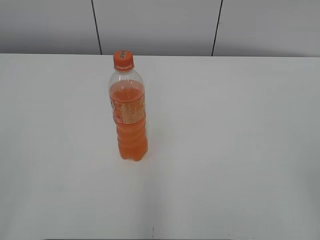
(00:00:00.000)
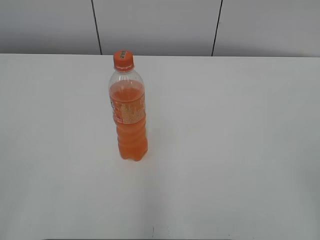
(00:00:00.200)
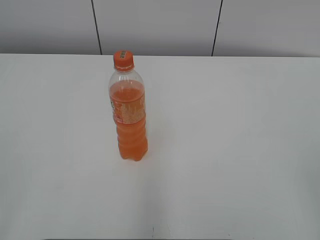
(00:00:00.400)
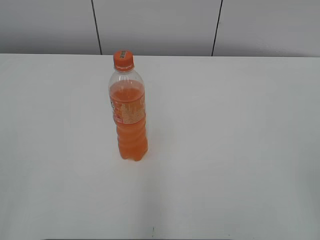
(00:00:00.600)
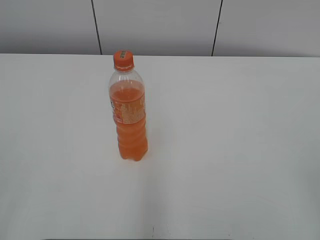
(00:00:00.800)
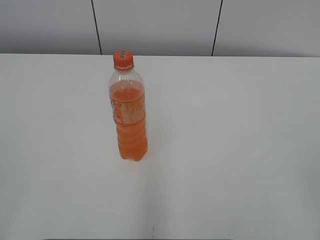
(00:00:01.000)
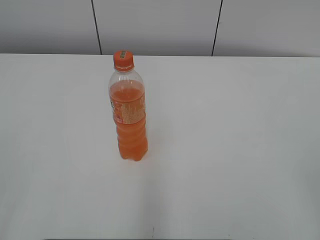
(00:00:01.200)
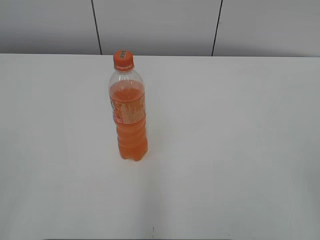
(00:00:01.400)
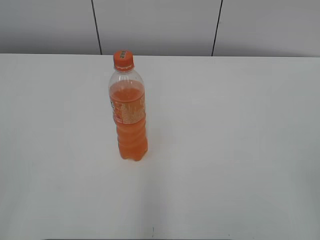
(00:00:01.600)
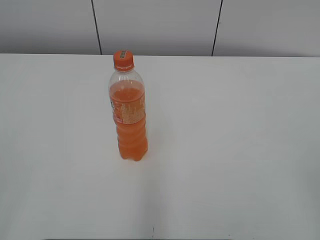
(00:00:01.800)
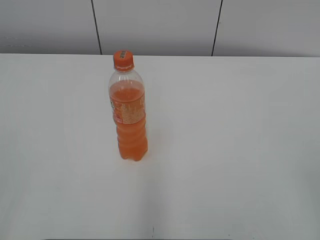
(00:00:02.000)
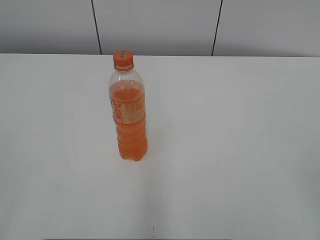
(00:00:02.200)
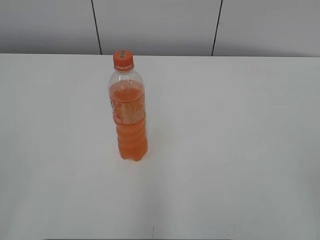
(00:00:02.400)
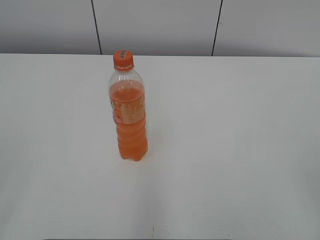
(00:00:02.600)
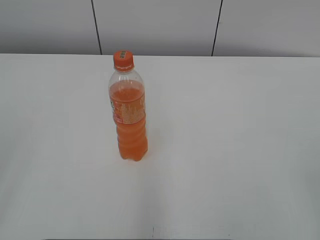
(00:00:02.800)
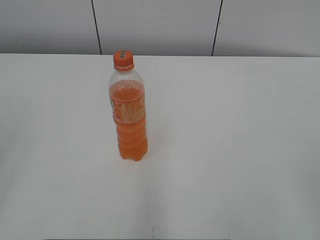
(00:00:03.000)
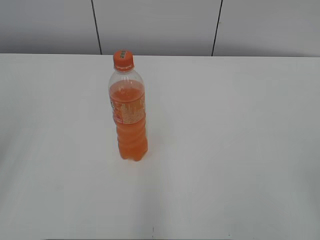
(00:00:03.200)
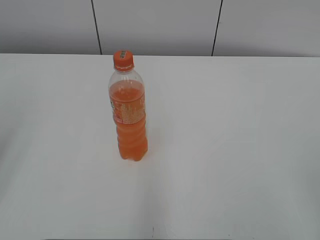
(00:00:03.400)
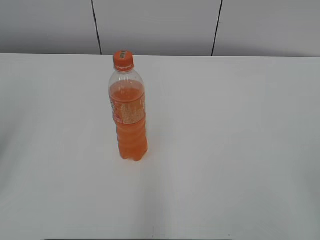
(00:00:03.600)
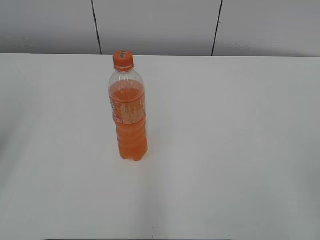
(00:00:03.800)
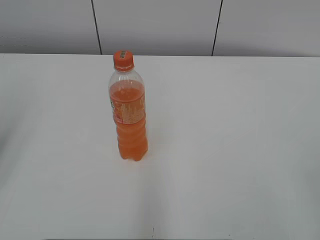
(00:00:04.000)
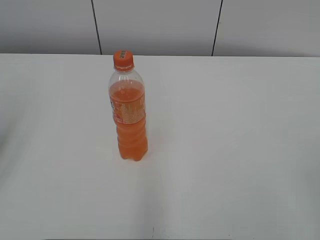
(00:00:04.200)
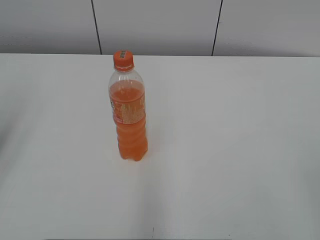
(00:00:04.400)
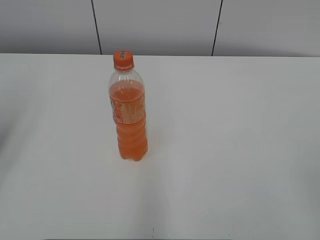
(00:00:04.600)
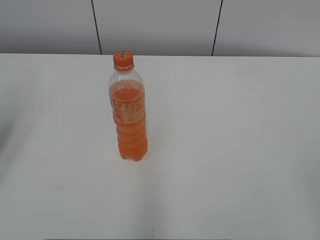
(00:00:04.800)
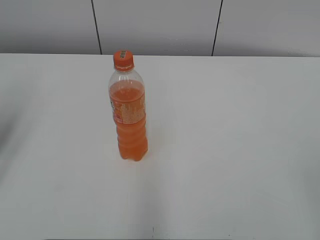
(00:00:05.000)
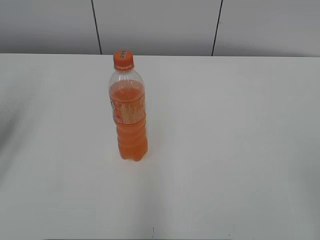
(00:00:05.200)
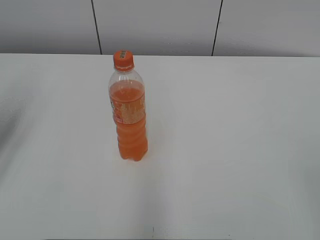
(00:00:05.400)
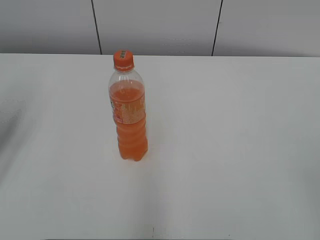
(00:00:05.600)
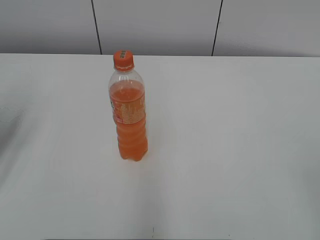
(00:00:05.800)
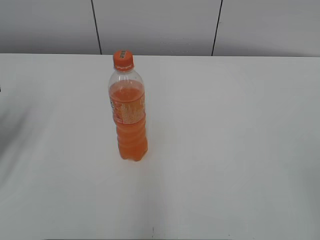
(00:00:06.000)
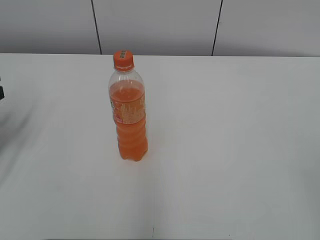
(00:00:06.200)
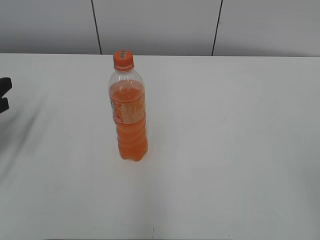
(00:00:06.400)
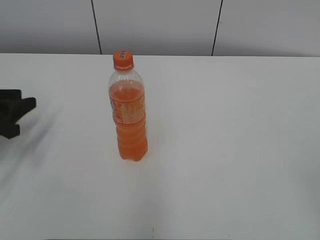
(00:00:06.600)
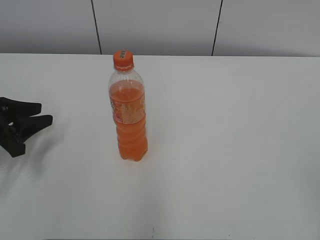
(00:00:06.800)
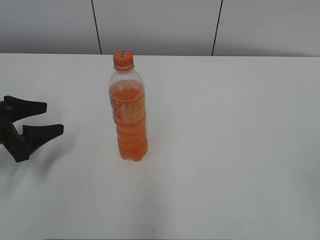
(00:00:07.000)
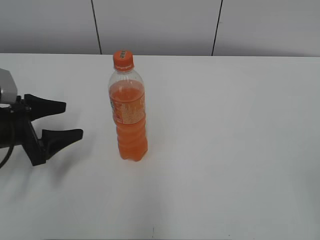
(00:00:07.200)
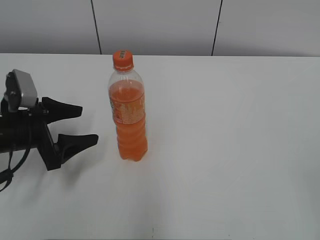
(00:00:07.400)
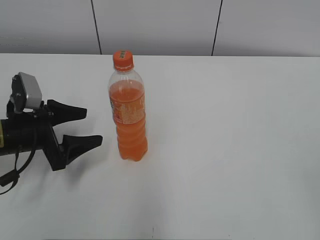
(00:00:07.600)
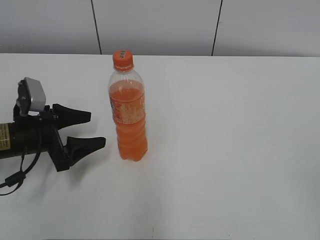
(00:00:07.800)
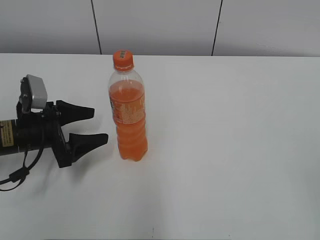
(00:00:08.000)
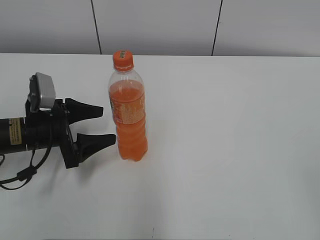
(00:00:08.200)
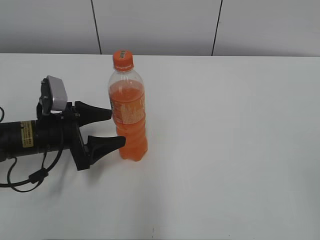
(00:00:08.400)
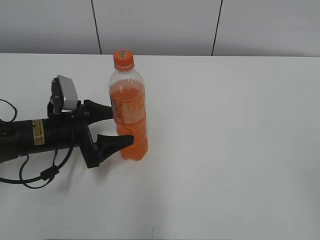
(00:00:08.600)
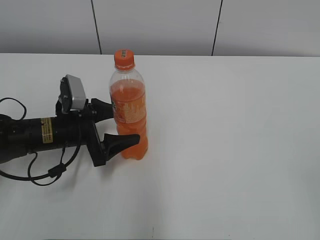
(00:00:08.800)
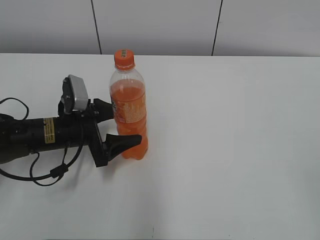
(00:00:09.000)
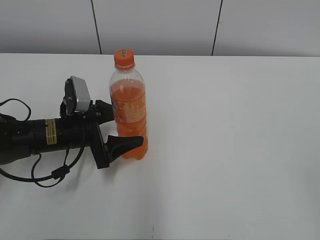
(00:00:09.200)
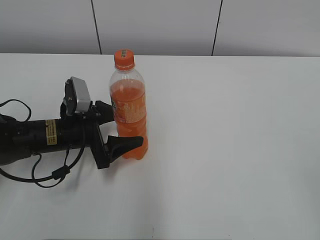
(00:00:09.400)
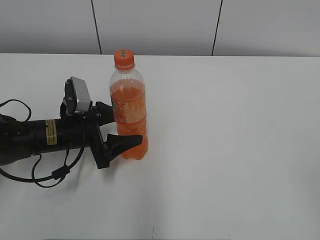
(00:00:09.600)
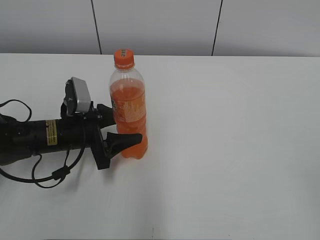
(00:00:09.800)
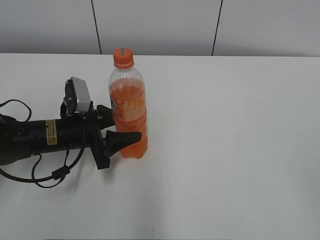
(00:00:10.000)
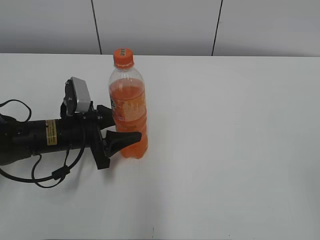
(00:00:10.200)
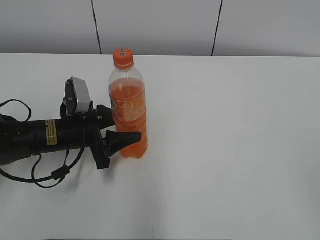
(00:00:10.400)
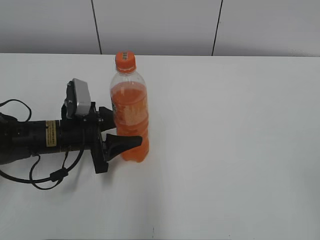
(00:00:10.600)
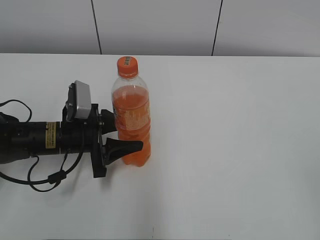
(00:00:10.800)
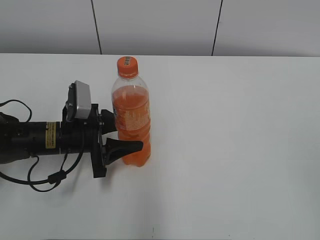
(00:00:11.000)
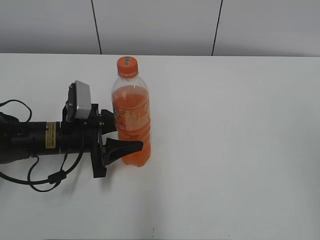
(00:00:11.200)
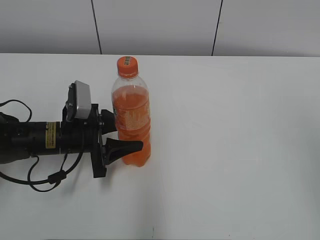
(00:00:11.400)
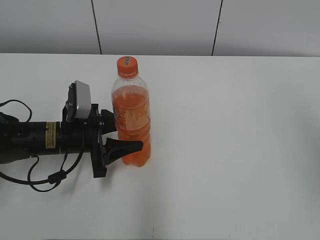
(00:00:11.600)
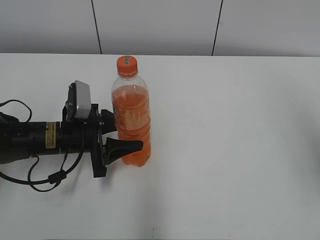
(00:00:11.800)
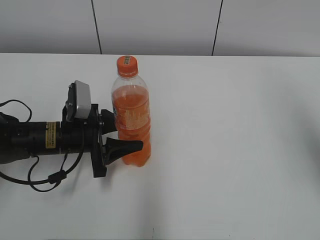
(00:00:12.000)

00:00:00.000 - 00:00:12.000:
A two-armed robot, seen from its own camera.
Step, 00:00:00.000 - 00:00:10.200: Grab the Mirinda with the left hand.
00:00:06.000 - 00:00:07.600: The left gripper heads downward and to the right, covering roughly 15 cm, and opens.
00:00:07.600 - 00:00:09.000: The left gripper travels to the right by roughly 5 cm.
00:00:09.000 - 00:00:10.400: The left gripper closes.
00:00:10.400 - 00:00:12.000: The right gripper heads forward and upward, covering approximately 20 cm.

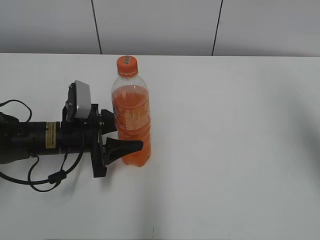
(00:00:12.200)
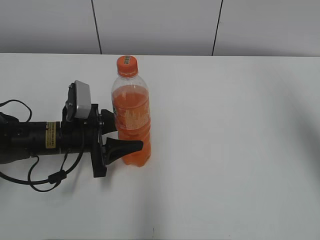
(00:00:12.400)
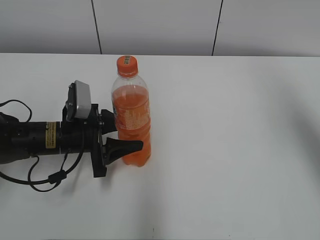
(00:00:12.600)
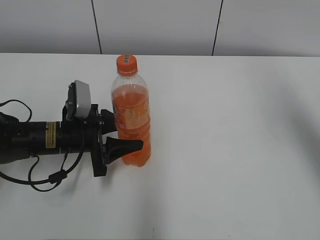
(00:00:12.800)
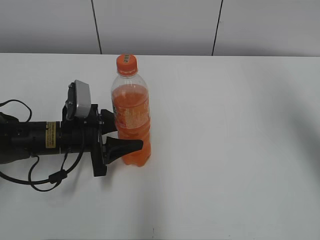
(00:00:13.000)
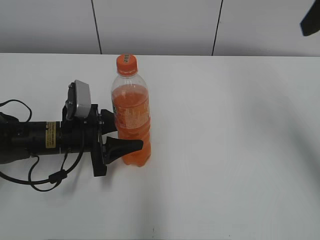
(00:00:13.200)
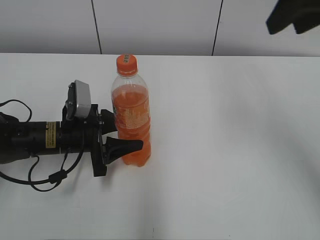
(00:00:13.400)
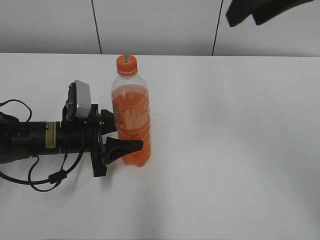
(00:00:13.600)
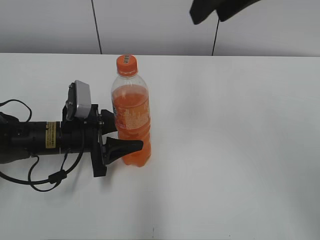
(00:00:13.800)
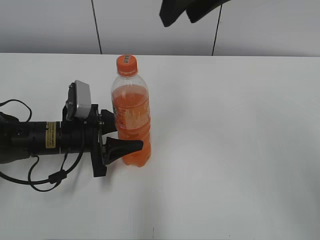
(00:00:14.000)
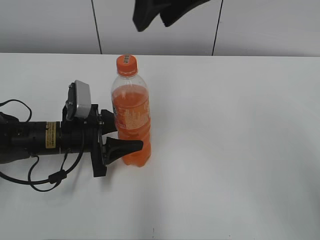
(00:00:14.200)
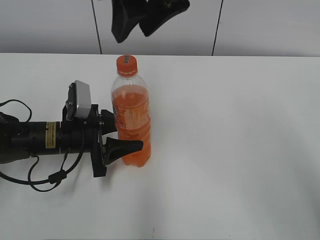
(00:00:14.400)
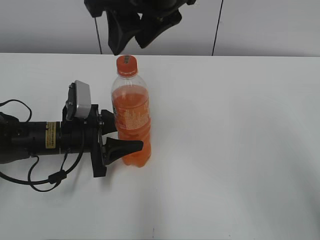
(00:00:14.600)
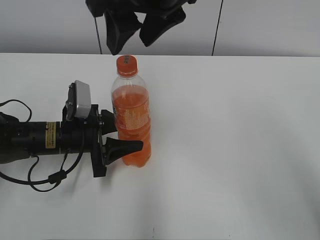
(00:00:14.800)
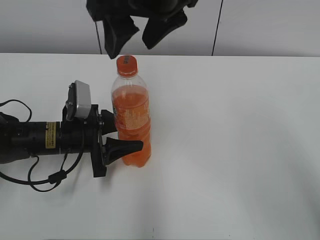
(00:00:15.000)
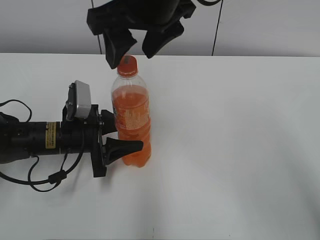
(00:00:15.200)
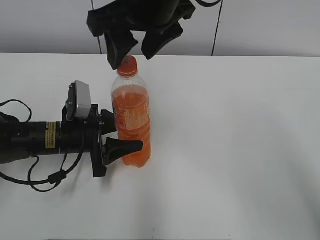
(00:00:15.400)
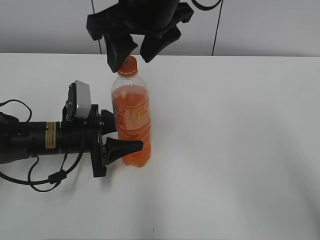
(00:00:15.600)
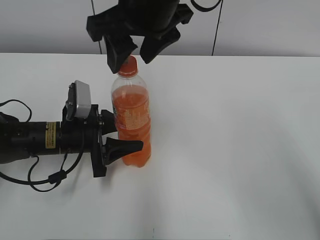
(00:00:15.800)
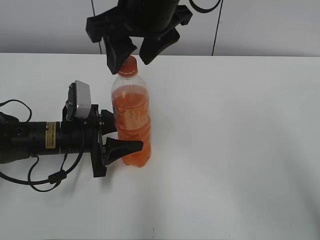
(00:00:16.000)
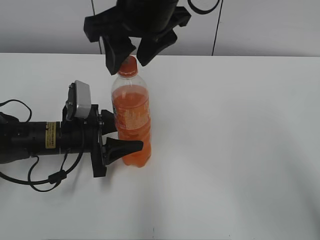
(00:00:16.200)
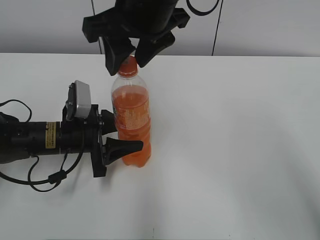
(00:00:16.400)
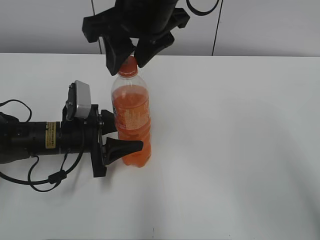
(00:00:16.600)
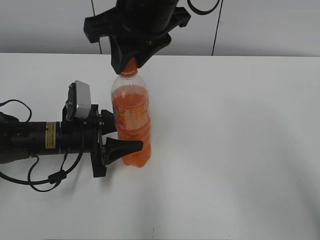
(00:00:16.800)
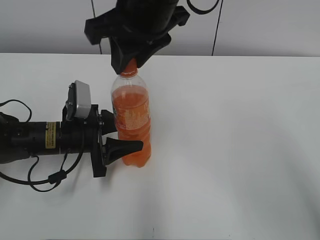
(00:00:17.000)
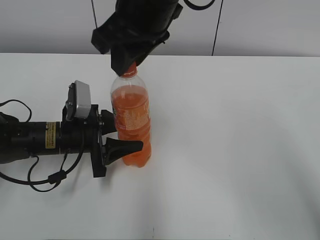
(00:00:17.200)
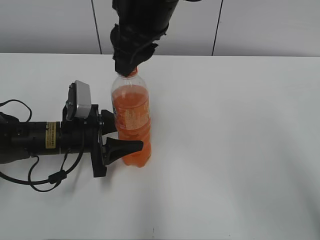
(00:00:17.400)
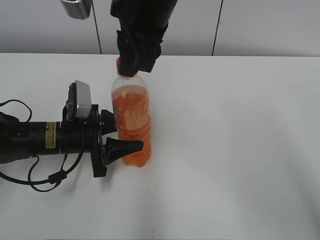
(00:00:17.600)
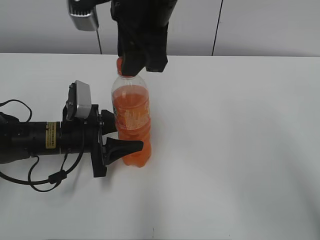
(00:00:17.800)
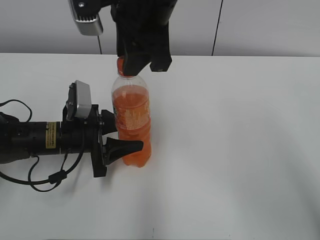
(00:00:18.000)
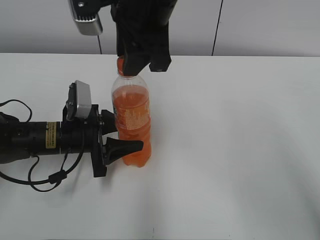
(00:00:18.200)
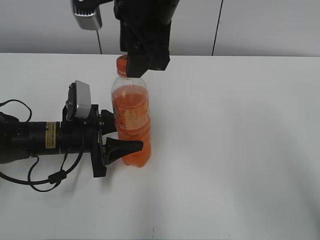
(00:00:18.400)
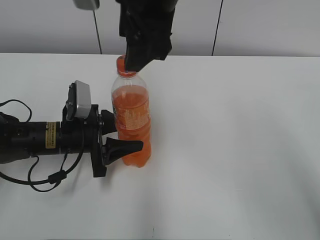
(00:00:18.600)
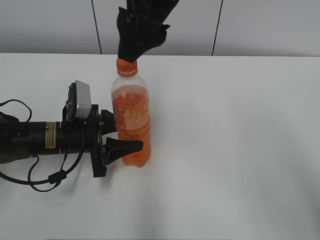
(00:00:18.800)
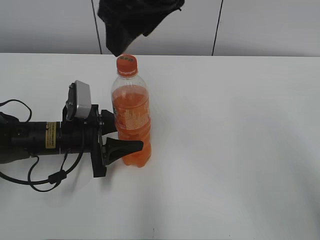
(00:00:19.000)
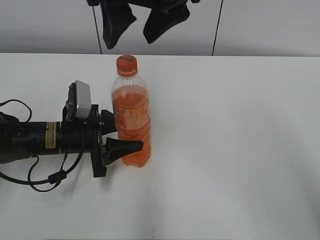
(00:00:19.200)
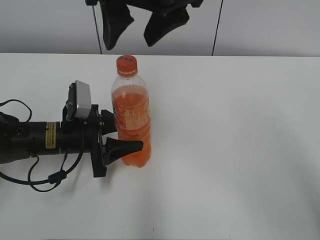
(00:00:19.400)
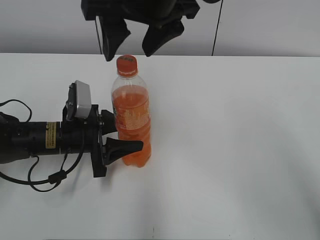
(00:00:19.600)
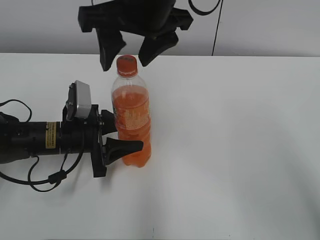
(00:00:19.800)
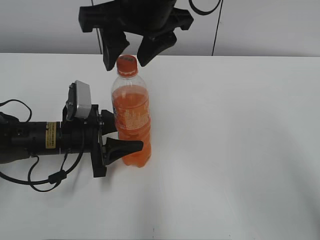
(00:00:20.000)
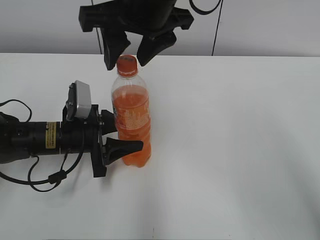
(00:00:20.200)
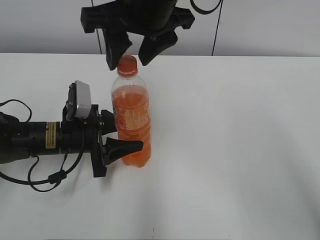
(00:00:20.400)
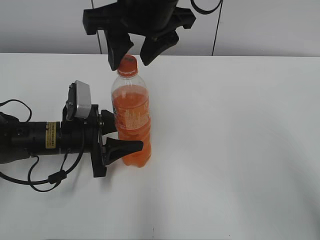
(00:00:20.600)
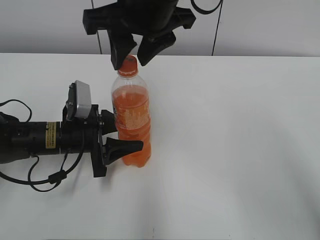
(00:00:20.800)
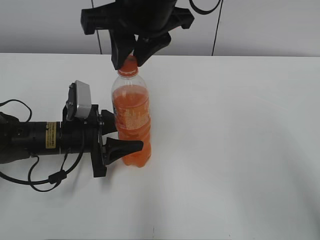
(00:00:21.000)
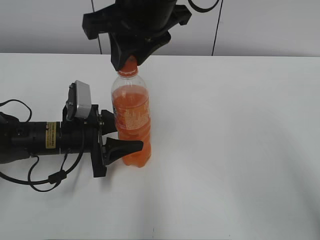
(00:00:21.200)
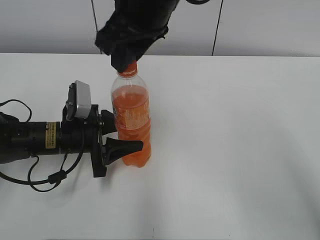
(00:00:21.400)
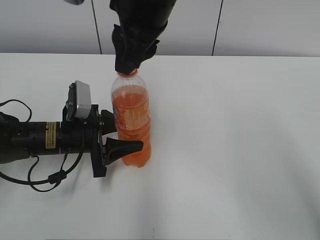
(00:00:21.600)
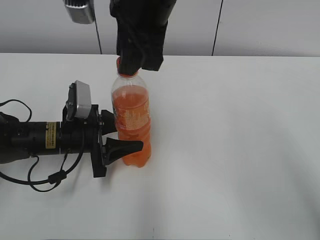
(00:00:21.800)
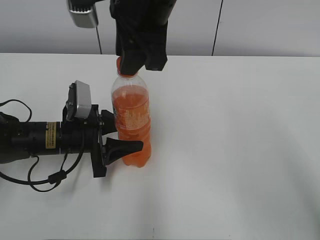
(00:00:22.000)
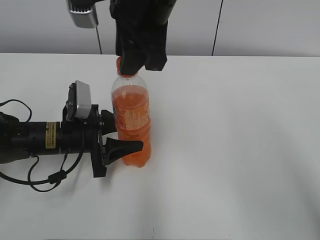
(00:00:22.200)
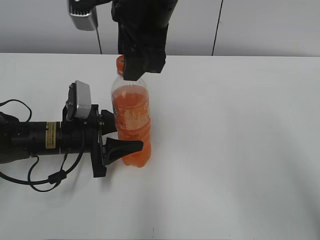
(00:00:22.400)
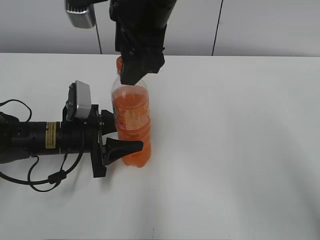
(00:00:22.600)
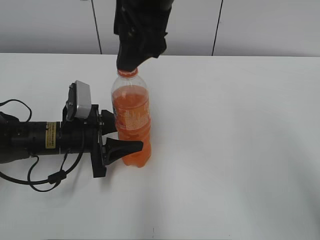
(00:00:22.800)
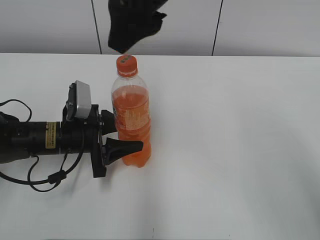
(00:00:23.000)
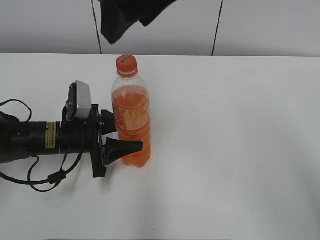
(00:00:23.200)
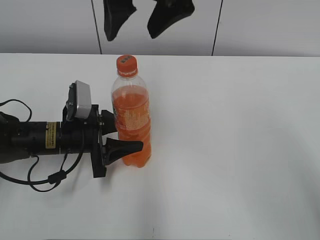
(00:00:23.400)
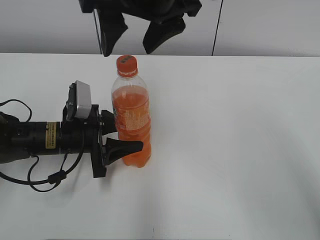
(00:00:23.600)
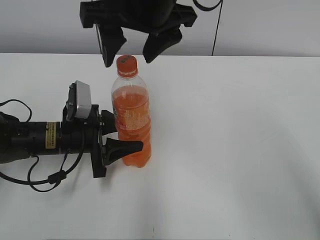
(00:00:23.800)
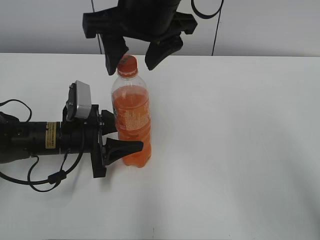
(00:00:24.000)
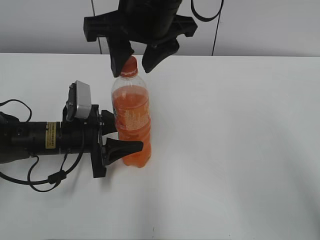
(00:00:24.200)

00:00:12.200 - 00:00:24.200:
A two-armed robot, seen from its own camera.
00:00:12.200 - 00:00:13.800: The right gripper goes some 20 cm to the left.
00:00:13.800 - 00:00:15.200: The right gripper is displaced to the left and downward by some 10 cm, and opens its fingers.
00:00:15.200 - 00:00:16.600: The right gripper closes up.
00:00:18.200 - 00:00:19.800: The right gripper opens its fingers.
00:00:19.800 - 00:00:21.200: The right gripper closes up.
00:00:21.200 - 00:00:22.600: The right gripper opens.
00:00:22.600 - 00:00:24.200: The right gripper closes up.
